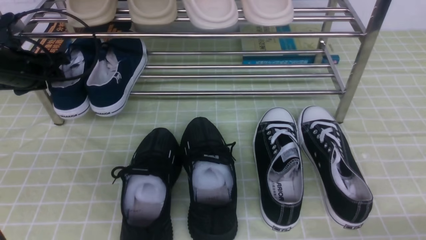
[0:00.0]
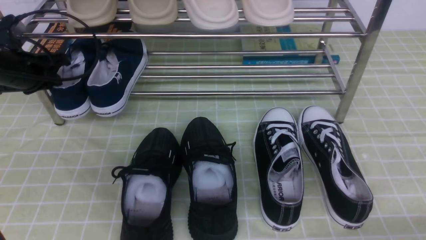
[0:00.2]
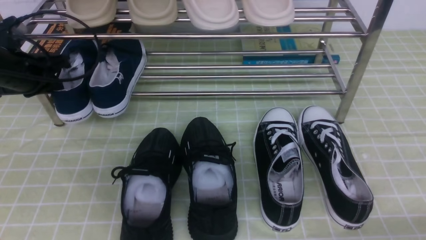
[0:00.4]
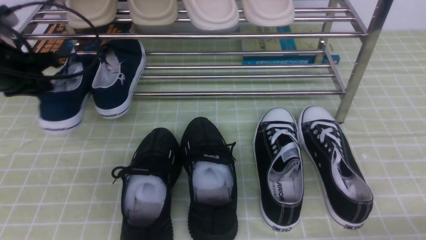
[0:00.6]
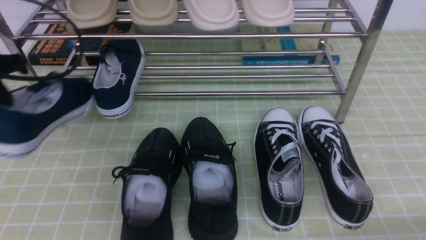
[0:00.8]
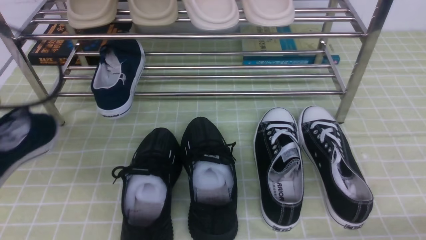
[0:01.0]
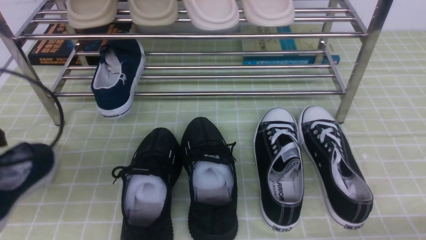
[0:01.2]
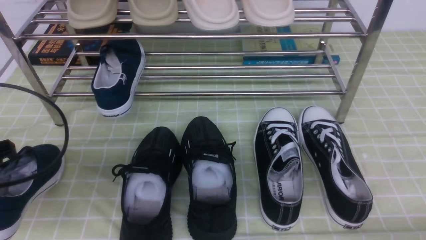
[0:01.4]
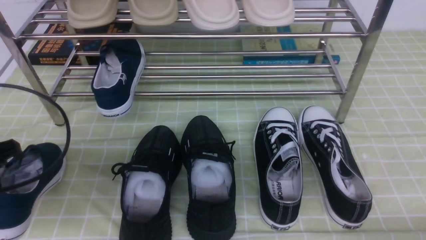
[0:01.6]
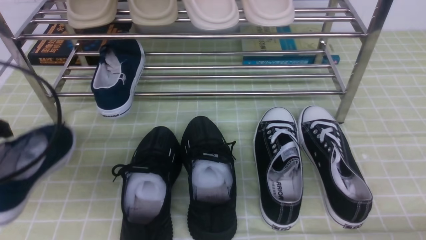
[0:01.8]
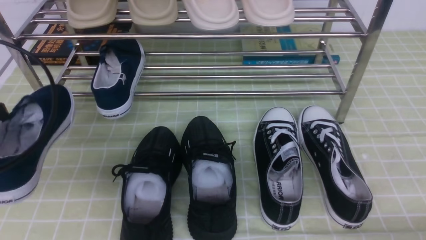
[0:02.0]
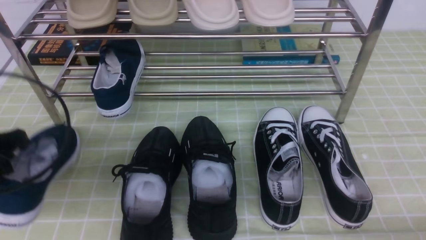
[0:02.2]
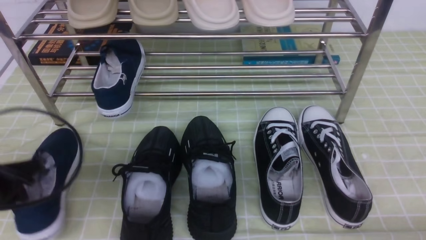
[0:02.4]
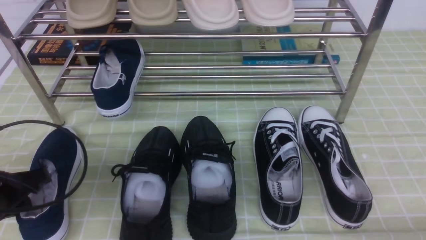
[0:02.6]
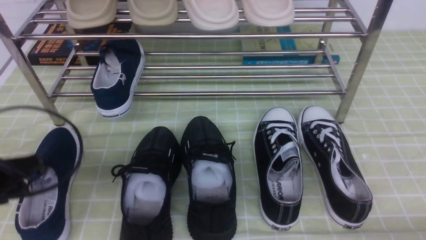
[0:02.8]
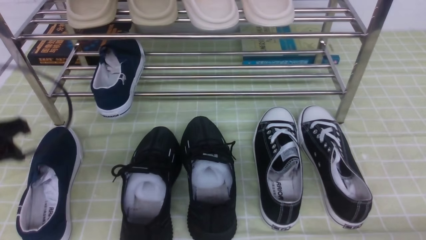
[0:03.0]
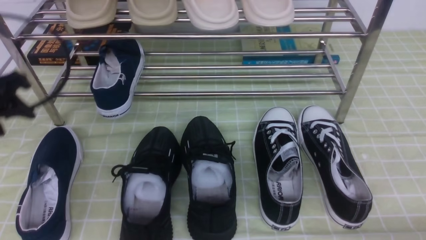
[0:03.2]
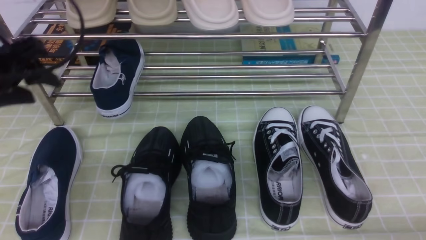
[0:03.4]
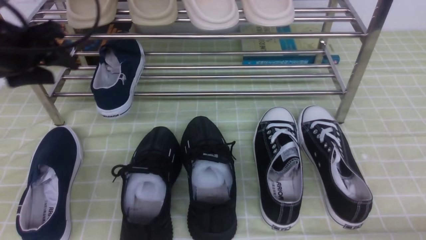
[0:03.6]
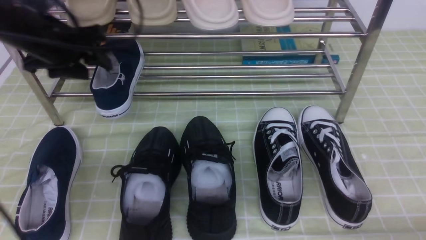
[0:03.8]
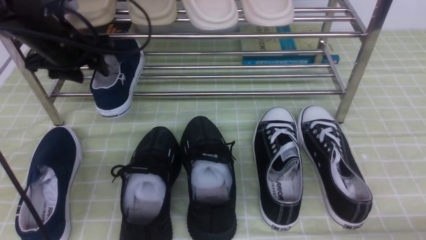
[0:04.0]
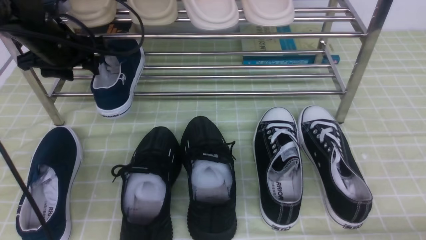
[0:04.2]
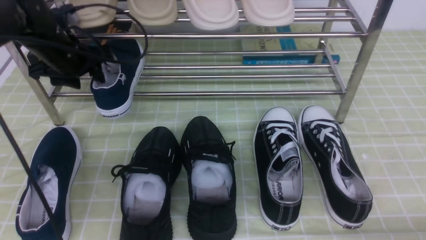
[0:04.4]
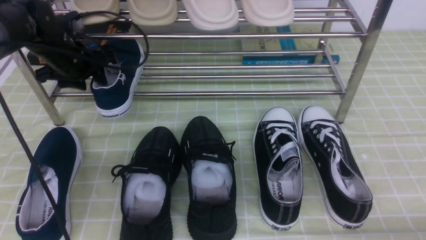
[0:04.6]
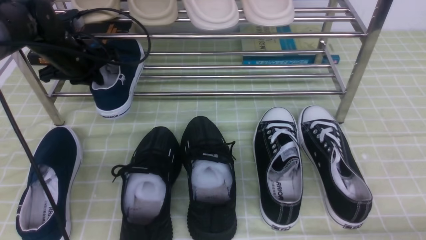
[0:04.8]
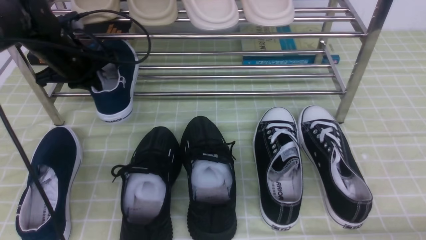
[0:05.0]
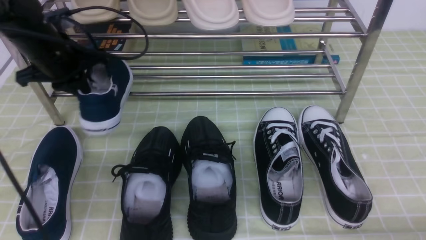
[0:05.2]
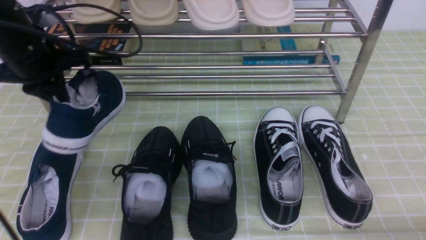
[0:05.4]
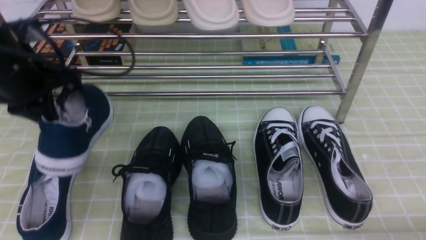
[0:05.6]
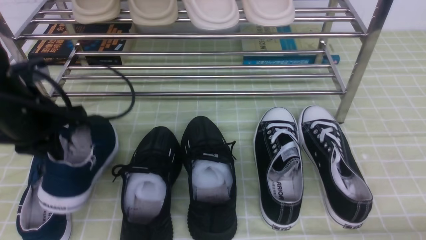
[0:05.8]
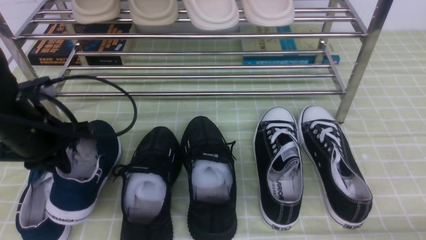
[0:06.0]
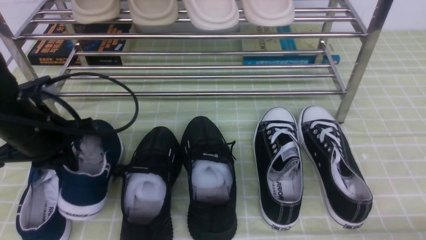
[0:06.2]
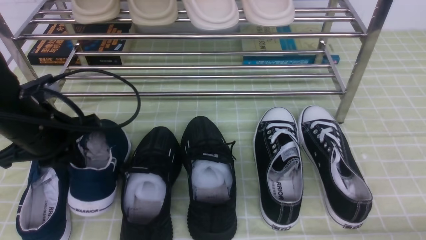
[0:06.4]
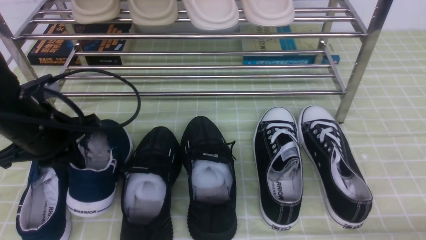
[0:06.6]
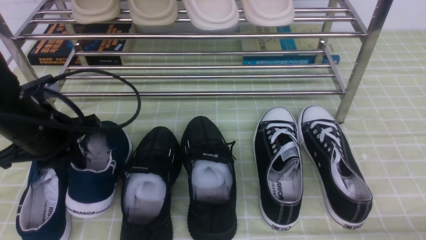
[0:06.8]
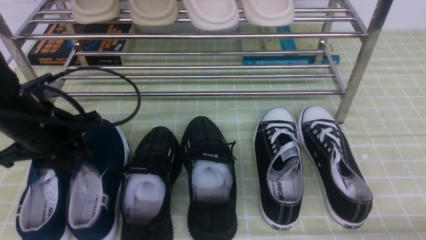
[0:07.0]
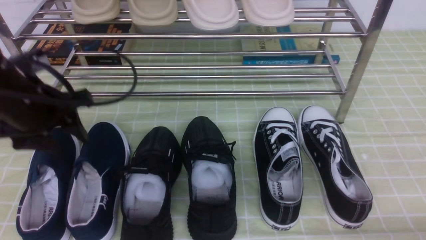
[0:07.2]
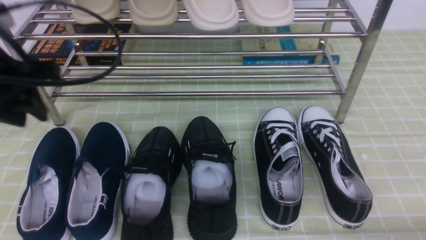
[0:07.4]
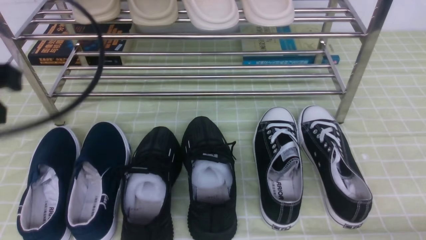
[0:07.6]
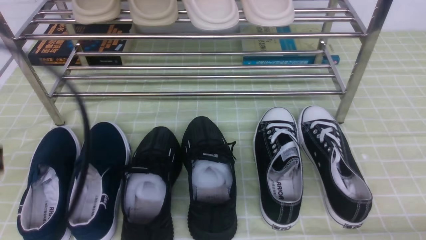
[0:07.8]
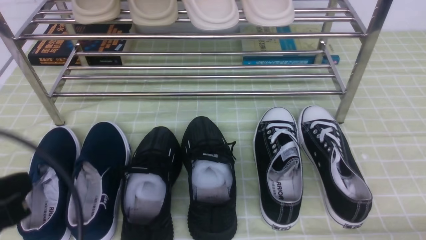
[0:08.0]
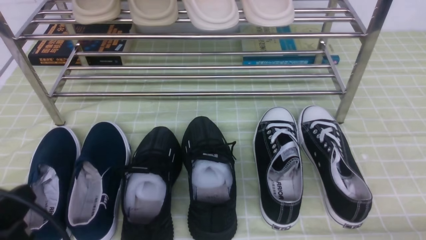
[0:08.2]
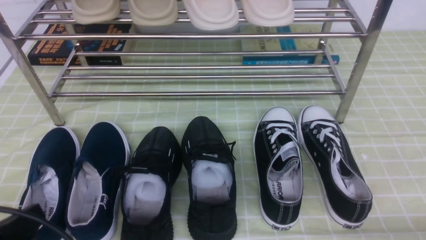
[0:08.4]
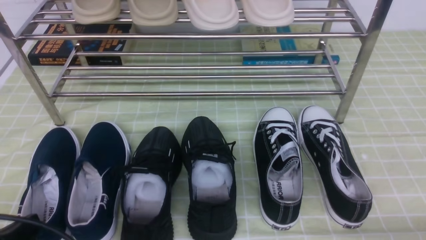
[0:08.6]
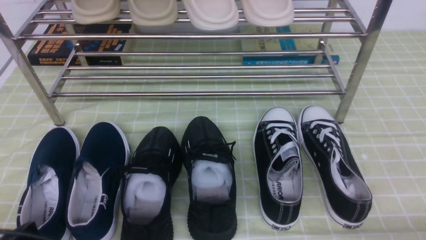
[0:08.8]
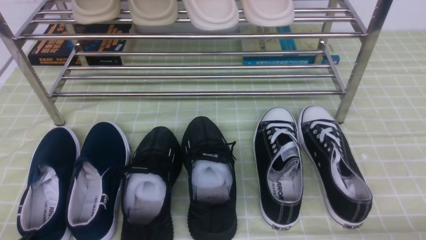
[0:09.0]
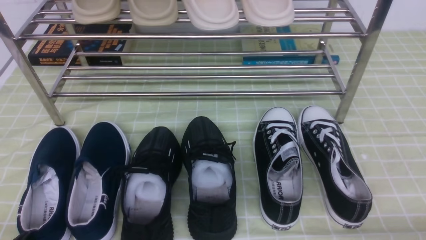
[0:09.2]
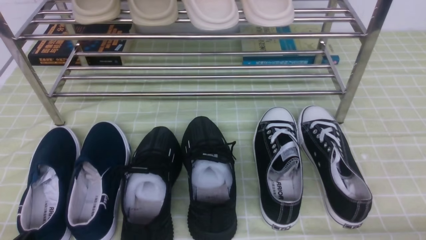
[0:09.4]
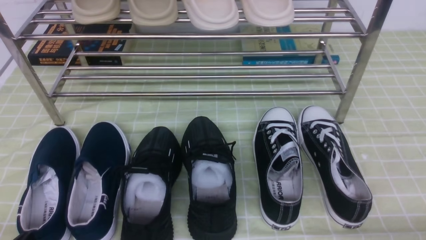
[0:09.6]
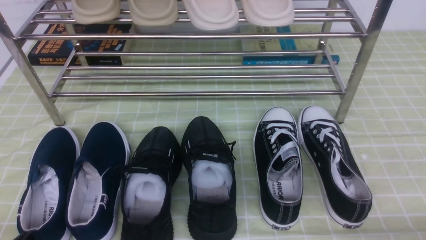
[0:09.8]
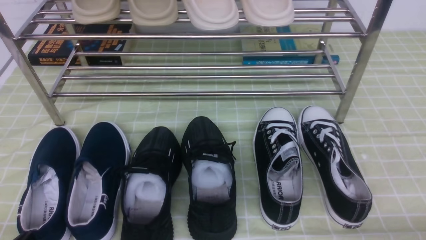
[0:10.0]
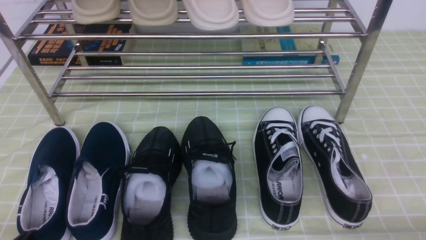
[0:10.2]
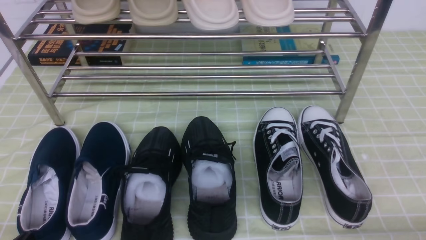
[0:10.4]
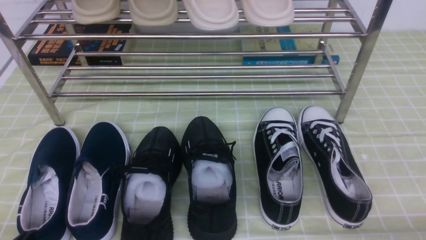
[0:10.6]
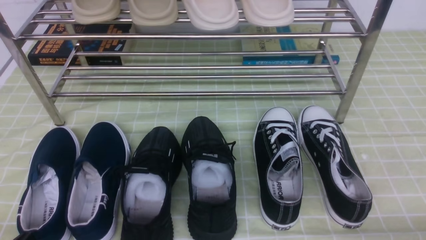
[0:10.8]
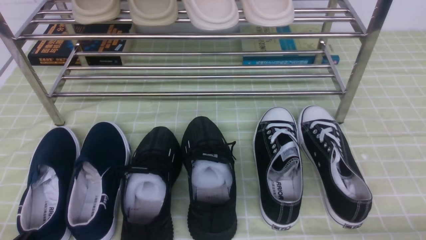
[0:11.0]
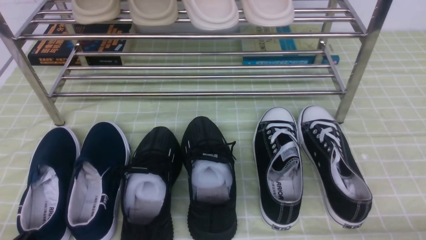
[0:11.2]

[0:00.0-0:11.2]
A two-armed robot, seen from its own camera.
Step, 0:00.4 to 0:02.6: Use your left arm to remove the clamped shoe from the shoe rack and put it down.
Step, 0:03.0 to 0:04.8: use the left arm to clamp a shoe on the left side of the shoe rack.
Step, 0:05.2 to 0:07.2: Use your left arm to remove the clamped shoe from the shoe rack and put it down.
0:00.0 to 0:01.6: The left gripper travels backward by roughly 20 cm, and closes up.
0:01.6 to 0:03.2: The left gripper travels forward by about 5 cm, travels downward and back again, roughly 10 cm each way, and opens up.
0:03.2 to 0:04.8: The left gripper heads forward, covering approximately 20 cm, and closes.
0:04.8 to 0:06.4: The left gripper heads backward, covering approximately 15 cm.
0:06.4 to 0:08.0: The left gripper shifts about 20 cm backward, and opens, then closes again.
0:08.0 to 0:09.6: The left gripper is displaced downward by approximately 15 cm.
0:09.6 to 0:11.2: Neither gripper changes place.

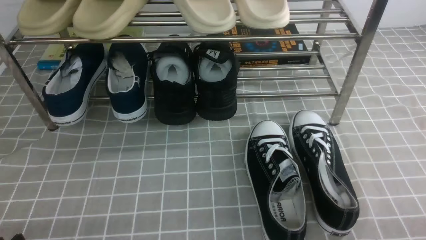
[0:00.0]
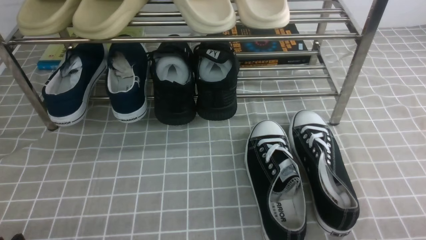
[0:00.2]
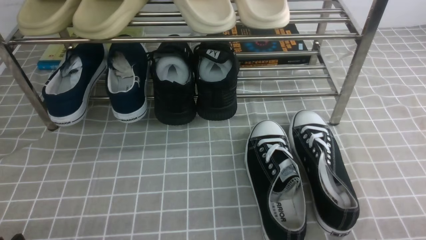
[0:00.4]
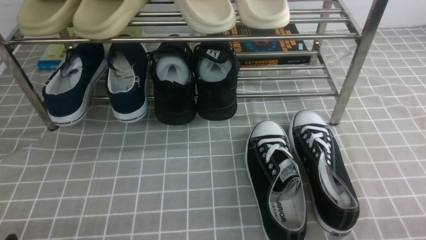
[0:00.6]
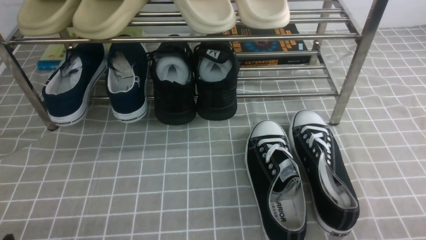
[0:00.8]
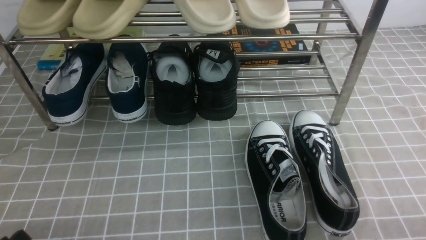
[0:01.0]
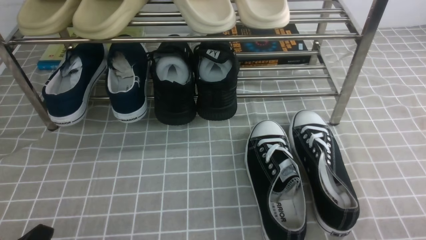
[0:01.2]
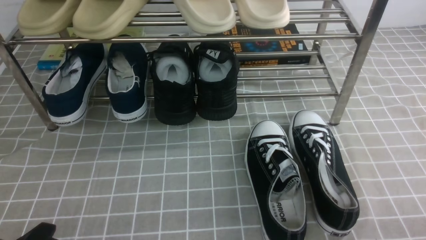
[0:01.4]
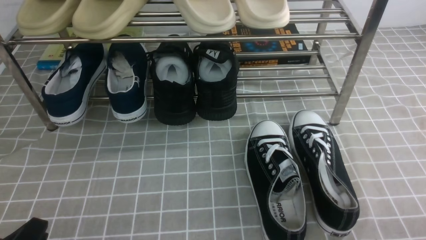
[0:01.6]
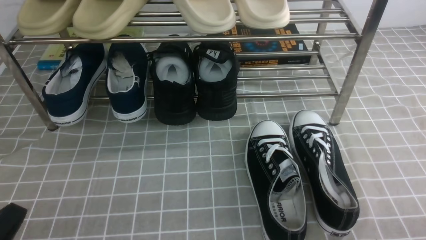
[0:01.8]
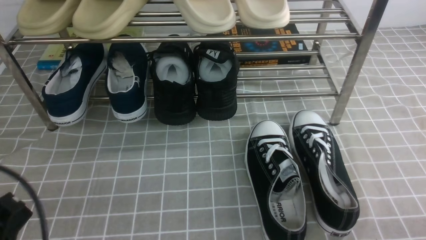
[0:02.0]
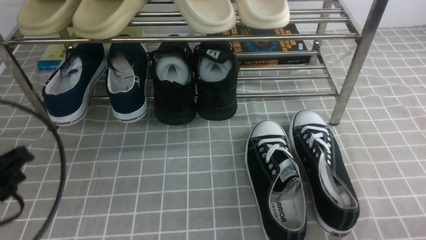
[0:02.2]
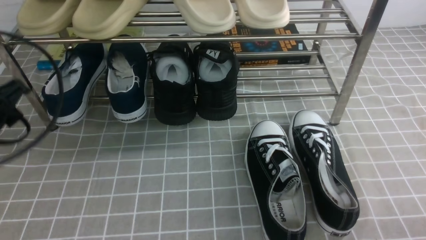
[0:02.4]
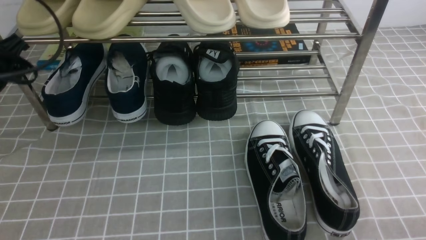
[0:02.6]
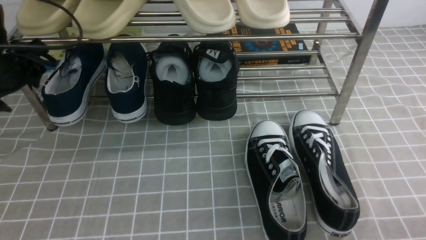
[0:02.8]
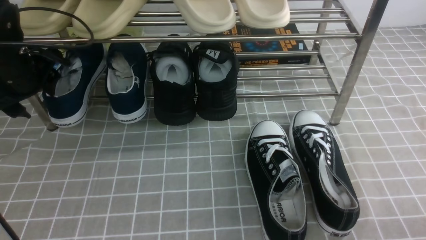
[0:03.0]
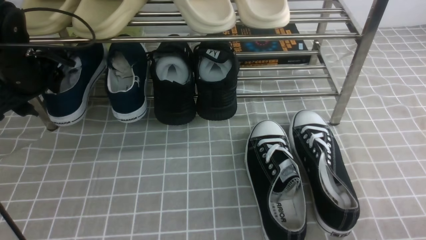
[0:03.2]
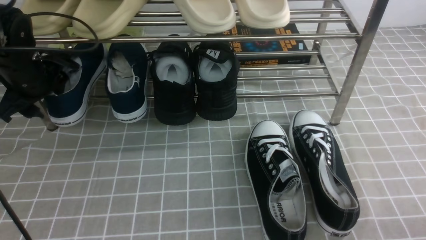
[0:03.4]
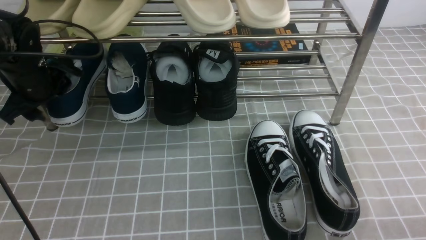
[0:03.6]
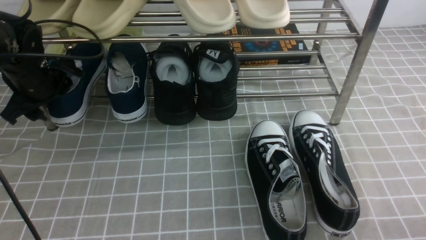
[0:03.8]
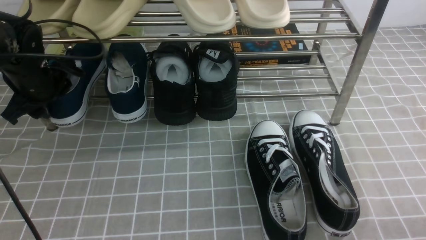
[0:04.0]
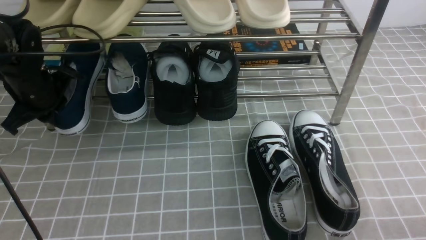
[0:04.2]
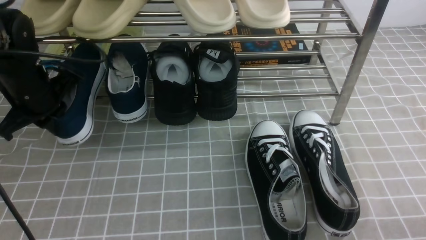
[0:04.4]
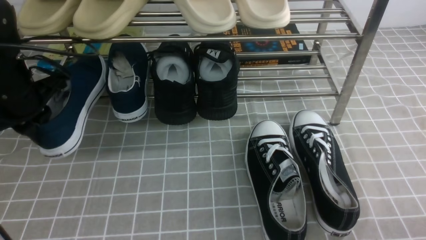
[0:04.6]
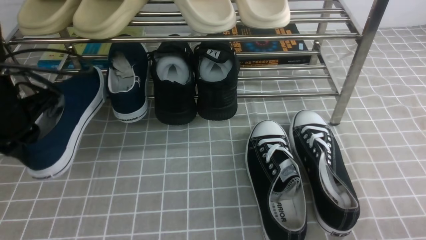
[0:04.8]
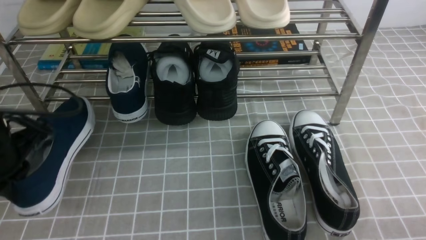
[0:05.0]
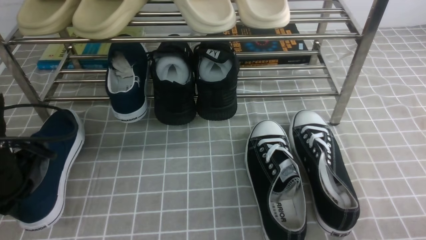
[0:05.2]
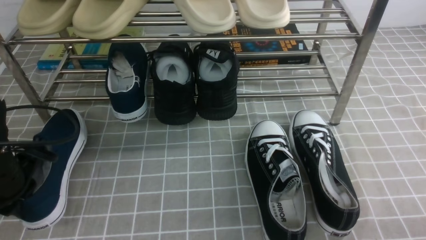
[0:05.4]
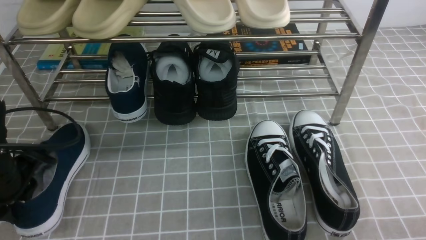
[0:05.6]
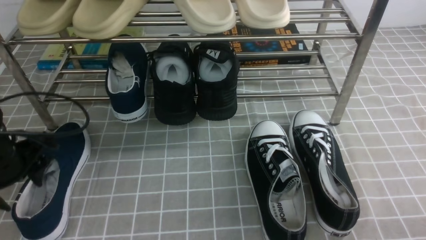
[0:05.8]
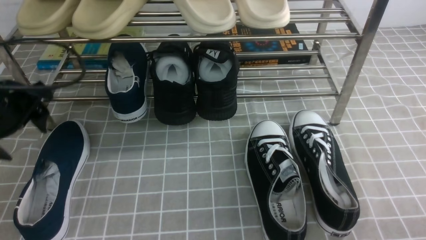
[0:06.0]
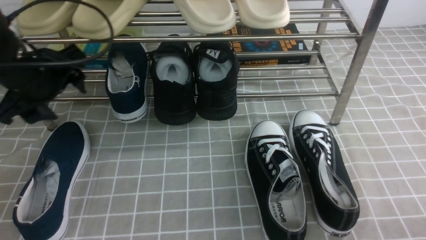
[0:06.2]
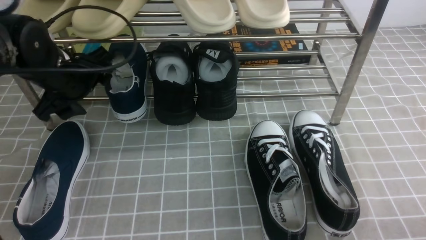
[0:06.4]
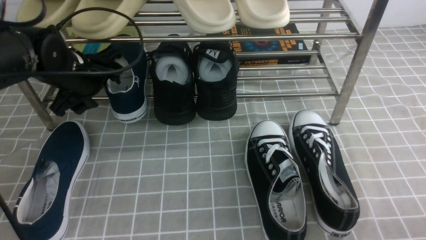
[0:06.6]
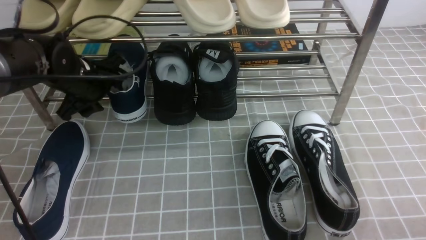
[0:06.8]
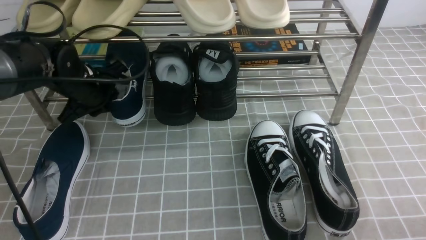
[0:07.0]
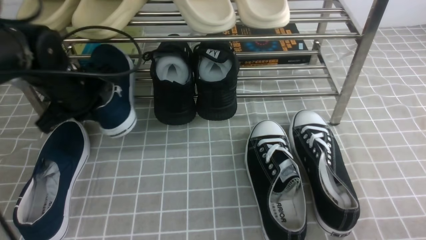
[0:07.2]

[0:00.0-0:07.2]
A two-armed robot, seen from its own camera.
Step, 0:00.0 to 0:04.2: use the left arm to clamp a shoe on the left side of the shoe rack.
Step, 0:04.4 to 0:05.8: Use your left arm to remove the clamped shoe from the shoe rack and put it down.
Step, 0:06.0 to 0:07.2: use the left arm to clamp a shoe on the left side of the shoe rack.
0:01.4 to 0:02.8: The left gripper is displaced forward and upward by about 30 cm, and opens.
0:02.8 to 0:04.4: The left gripper closes up.
0:04.4 to 0:05.8: The left gripper shifts about 10 cm backward, and opens.
0:05.8 to 0:07.2: The left gripper shifts some 10 cm forward and to the right, and closes up.
